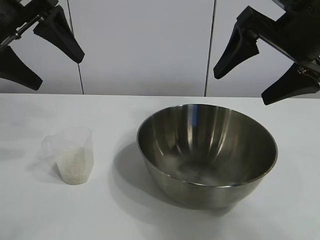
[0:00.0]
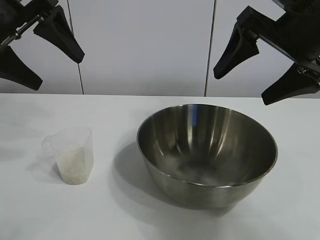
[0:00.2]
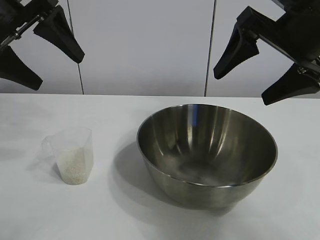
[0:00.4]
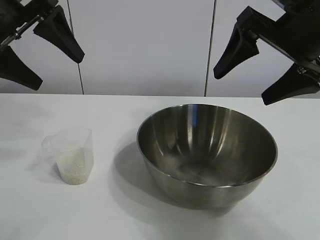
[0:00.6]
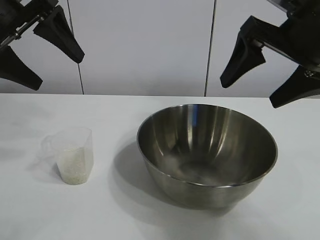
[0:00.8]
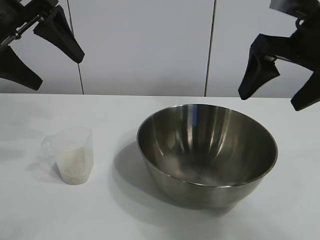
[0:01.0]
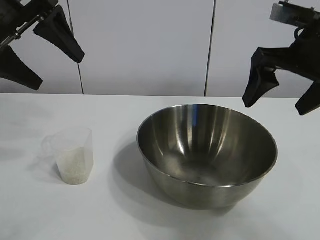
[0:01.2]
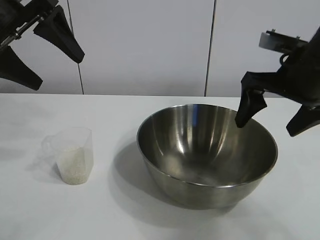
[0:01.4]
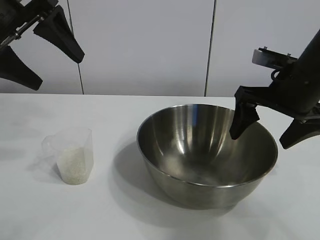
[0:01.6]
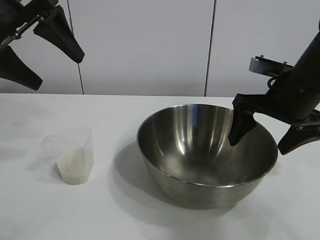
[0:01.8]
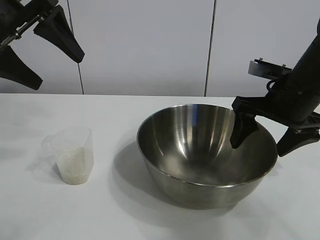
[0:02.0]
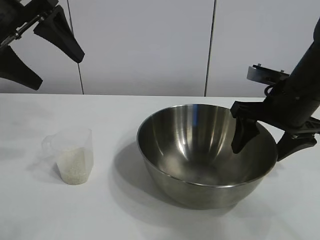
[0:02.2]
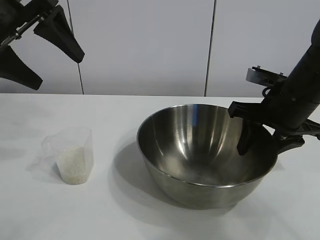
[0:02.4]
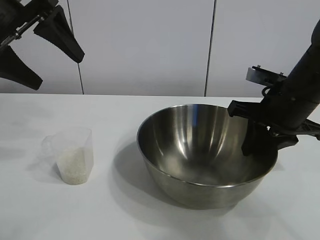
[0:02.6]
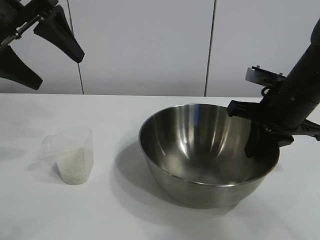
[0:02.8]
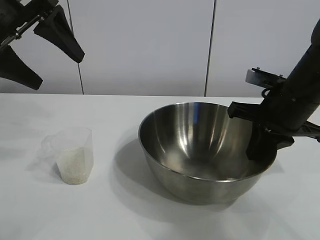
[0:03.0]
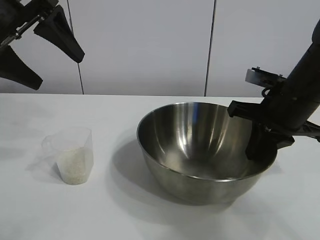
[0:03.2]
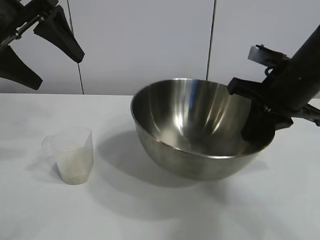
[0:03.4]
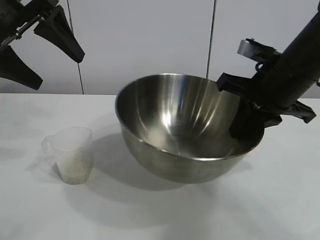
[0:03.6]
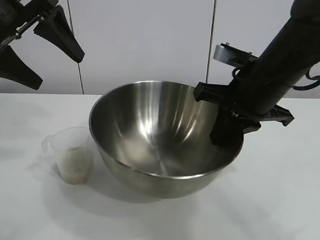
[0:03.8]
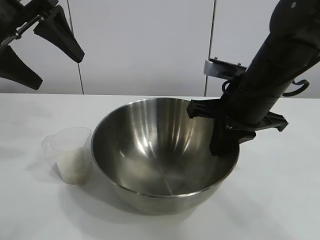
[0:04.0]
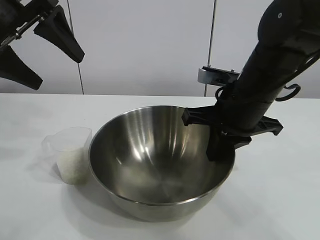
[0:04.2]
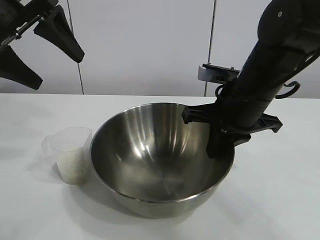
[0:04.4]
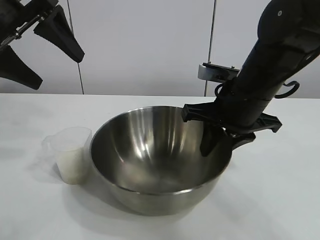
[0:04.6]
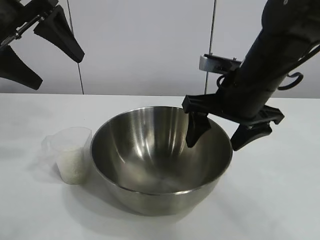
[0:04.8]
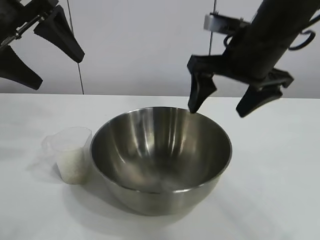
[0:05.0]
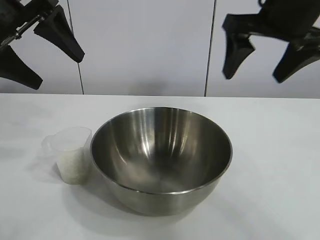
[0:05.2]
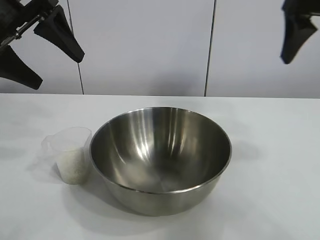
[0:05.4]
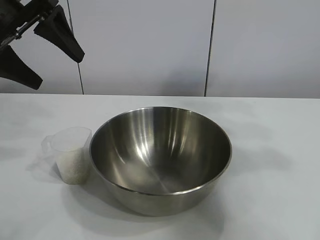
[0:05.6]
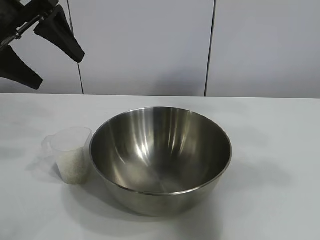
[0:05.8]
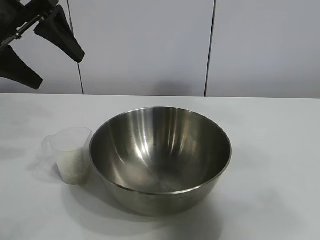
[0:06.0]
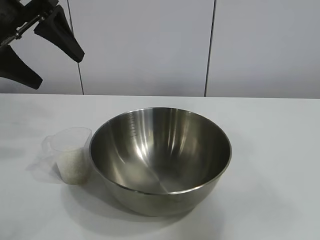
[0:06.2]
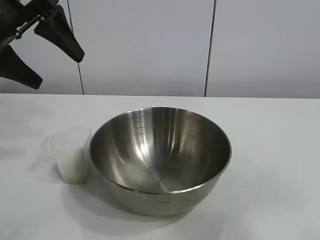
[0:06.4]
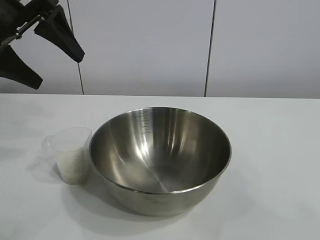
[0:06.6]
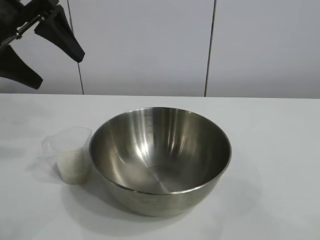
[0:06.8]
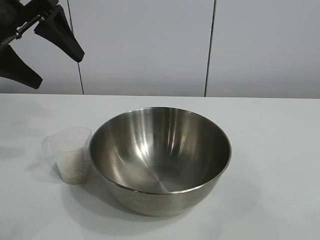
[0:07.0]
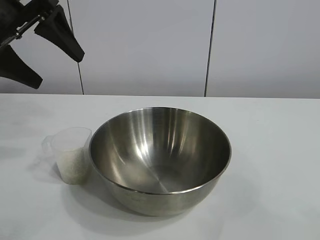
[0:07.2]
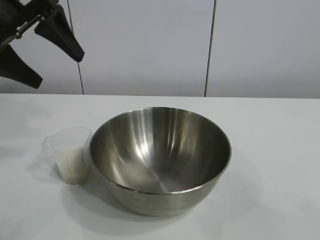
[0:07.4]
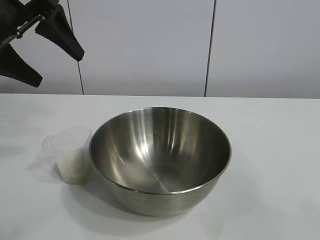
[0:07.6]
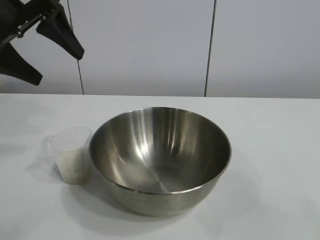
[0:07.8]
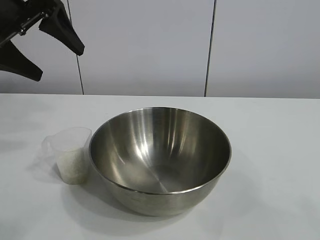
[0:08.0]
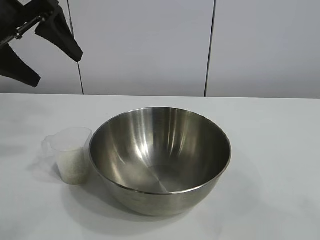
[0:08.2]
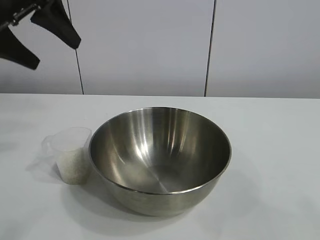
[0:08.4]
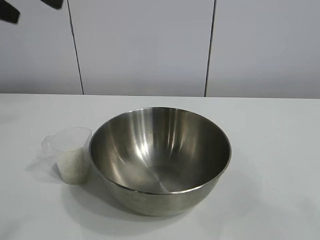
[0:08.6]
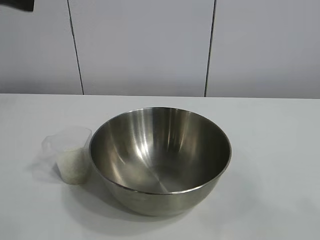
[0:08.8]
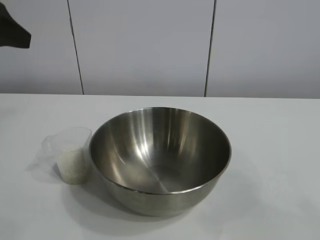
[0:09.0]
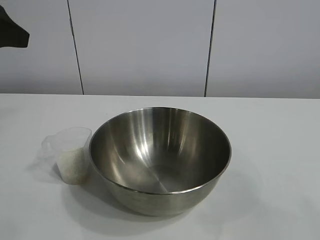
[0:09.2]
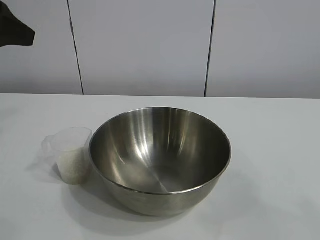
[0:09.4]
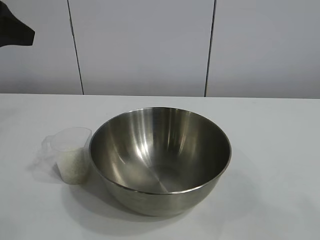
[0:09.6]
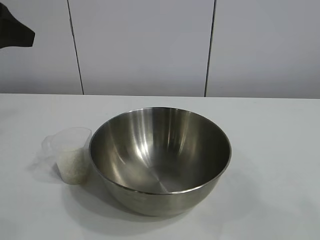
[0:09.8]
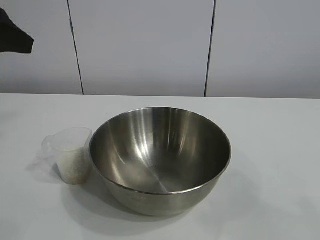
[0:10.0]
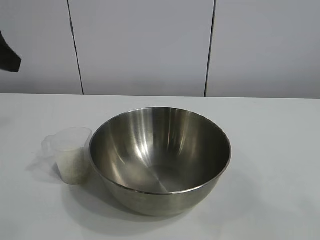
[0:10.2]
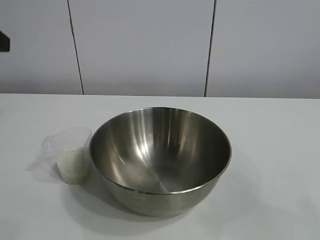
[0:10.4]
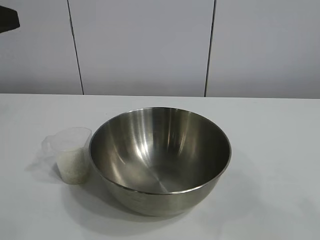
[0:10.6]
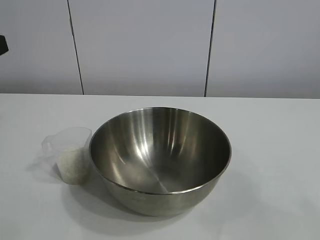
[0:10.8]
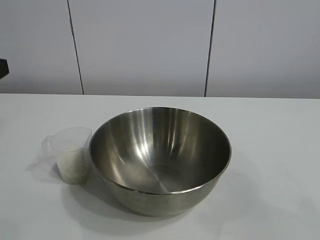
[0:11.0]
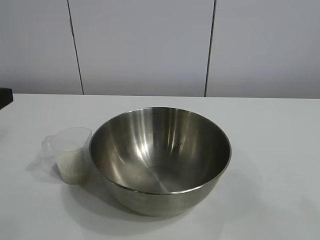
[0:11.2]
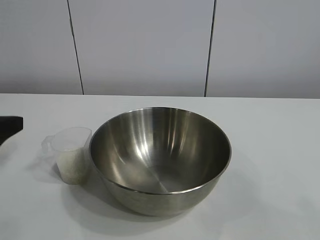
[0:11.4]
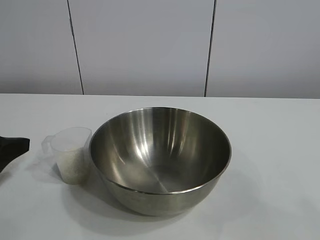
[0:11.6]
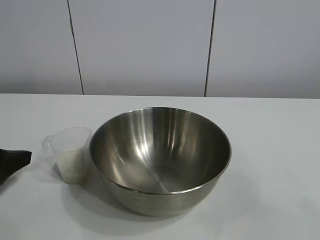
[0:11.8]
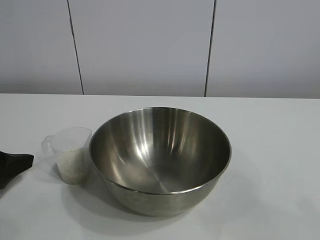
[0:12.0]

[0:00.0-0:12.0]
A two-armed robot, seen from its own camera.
Task of the whole recording: the right gripper grasp the rice container and place it in the center of the table, the left gripper grasp the rice scoop and pour the rice into the rice container.
Step, 0:00.6 to 0:04.6: Move the bowl in the center of view with right gripper.

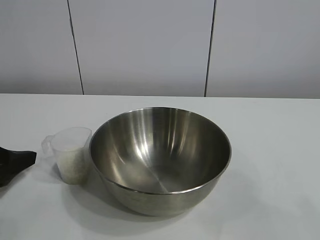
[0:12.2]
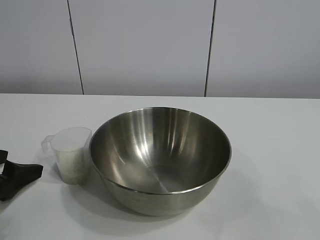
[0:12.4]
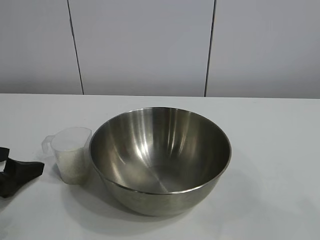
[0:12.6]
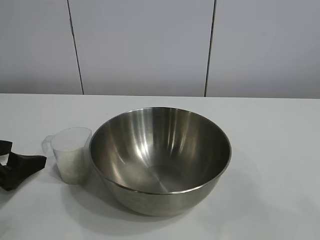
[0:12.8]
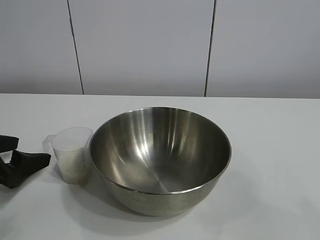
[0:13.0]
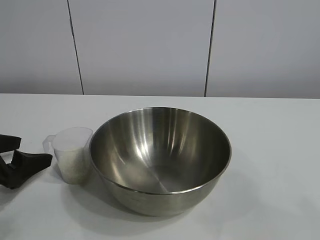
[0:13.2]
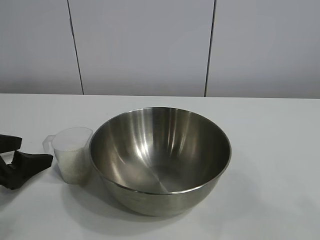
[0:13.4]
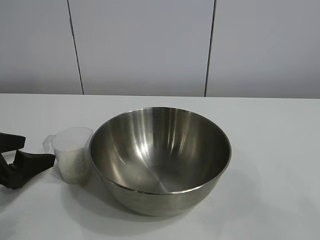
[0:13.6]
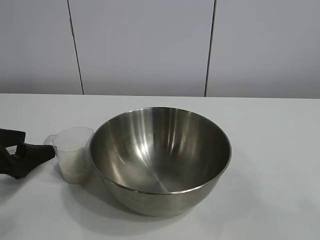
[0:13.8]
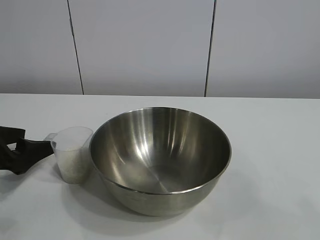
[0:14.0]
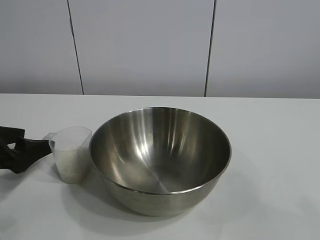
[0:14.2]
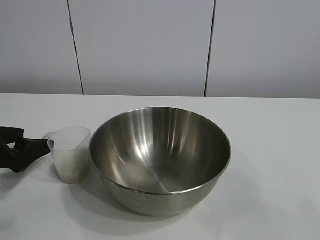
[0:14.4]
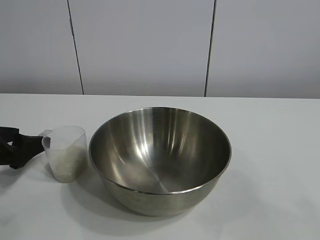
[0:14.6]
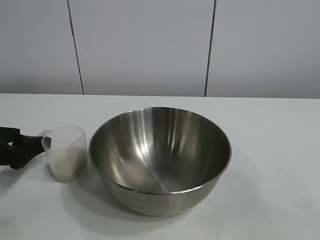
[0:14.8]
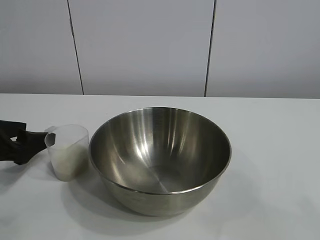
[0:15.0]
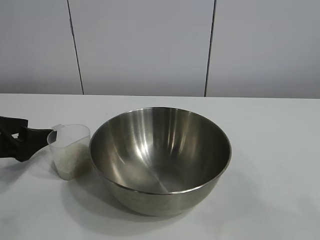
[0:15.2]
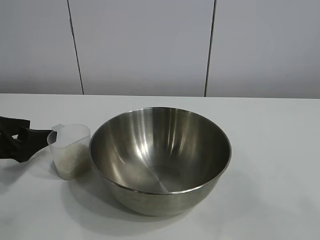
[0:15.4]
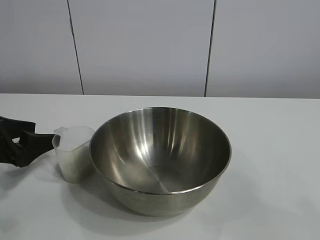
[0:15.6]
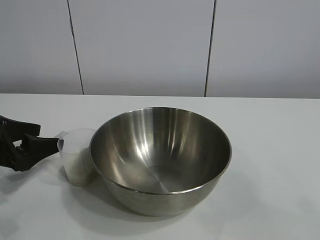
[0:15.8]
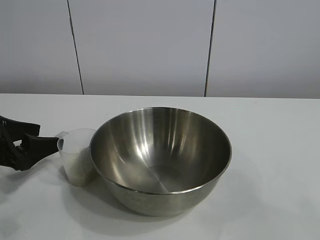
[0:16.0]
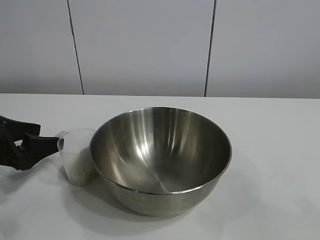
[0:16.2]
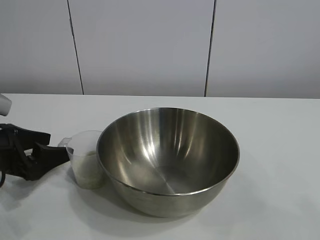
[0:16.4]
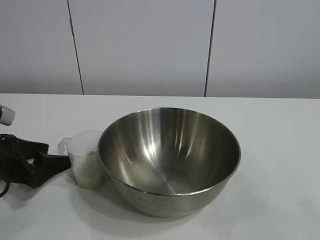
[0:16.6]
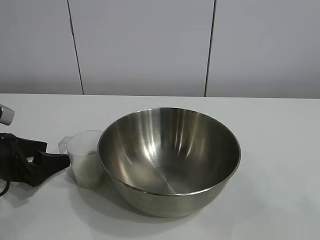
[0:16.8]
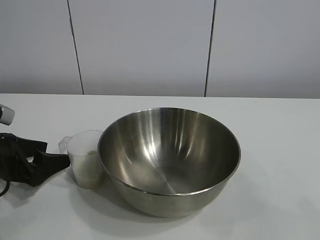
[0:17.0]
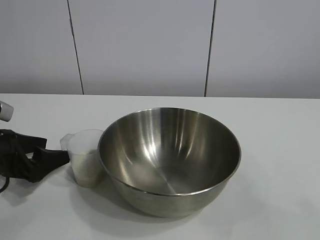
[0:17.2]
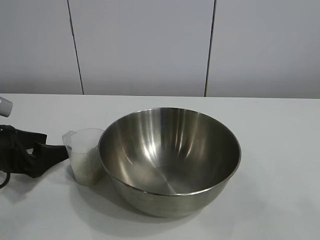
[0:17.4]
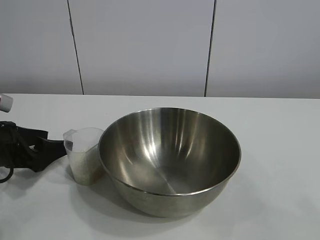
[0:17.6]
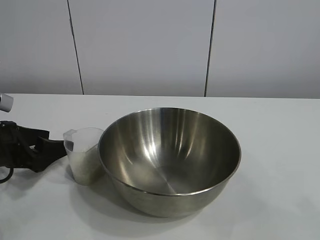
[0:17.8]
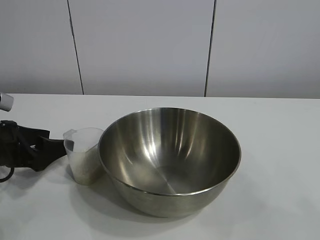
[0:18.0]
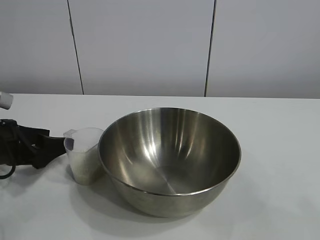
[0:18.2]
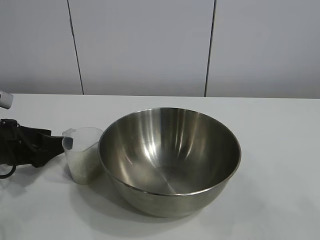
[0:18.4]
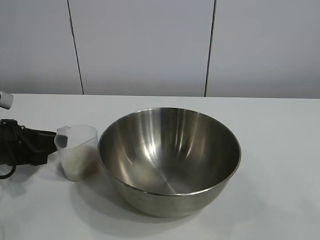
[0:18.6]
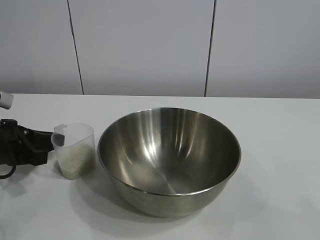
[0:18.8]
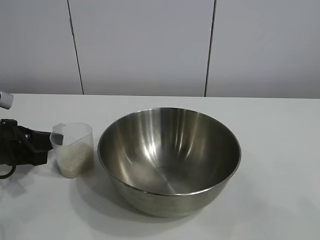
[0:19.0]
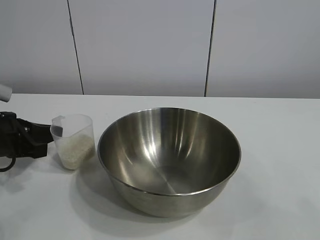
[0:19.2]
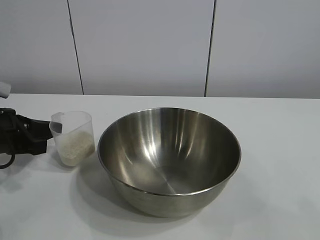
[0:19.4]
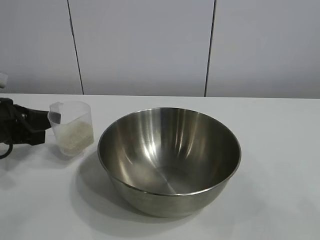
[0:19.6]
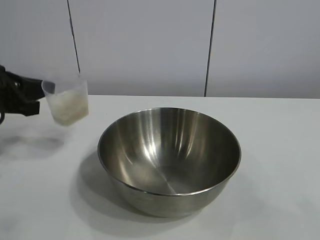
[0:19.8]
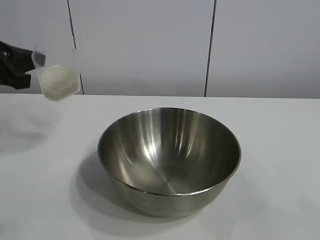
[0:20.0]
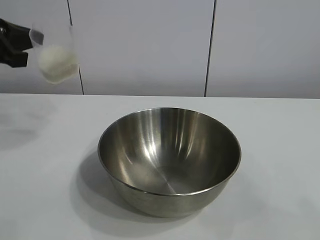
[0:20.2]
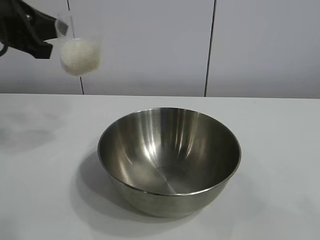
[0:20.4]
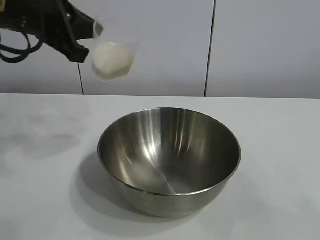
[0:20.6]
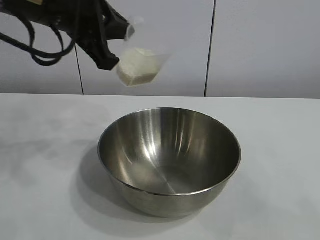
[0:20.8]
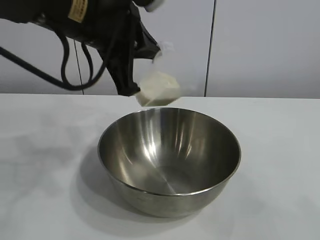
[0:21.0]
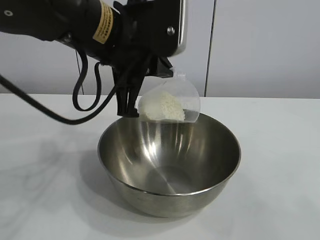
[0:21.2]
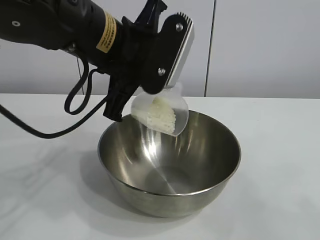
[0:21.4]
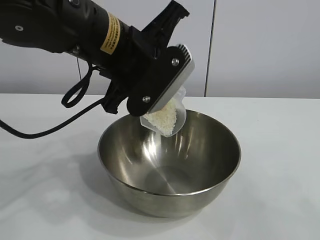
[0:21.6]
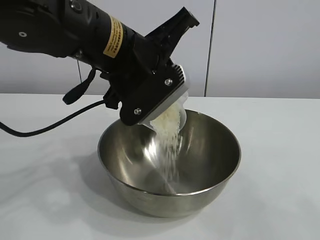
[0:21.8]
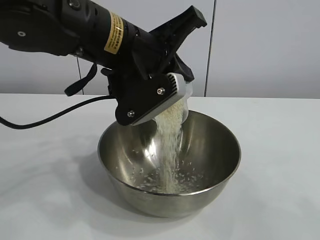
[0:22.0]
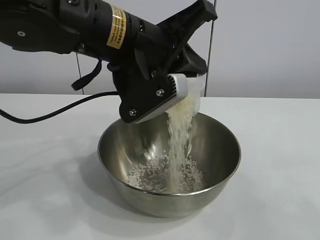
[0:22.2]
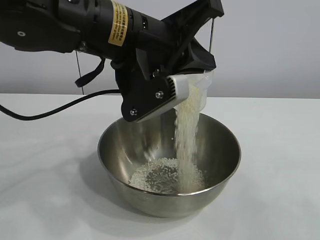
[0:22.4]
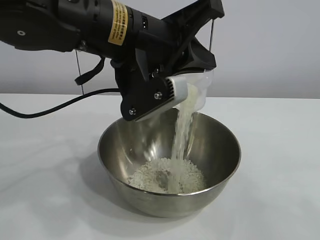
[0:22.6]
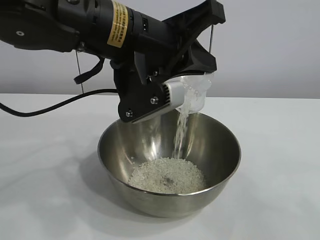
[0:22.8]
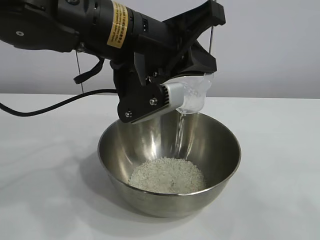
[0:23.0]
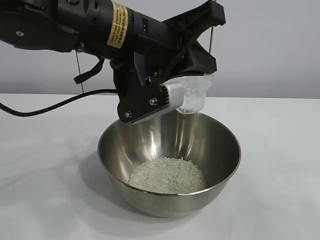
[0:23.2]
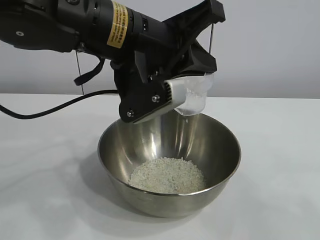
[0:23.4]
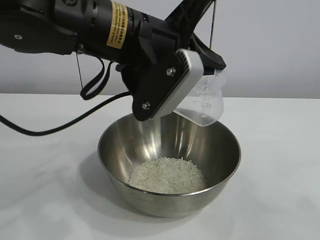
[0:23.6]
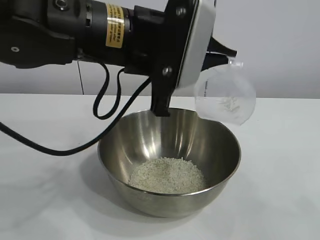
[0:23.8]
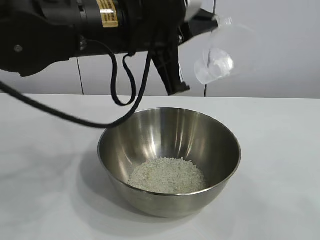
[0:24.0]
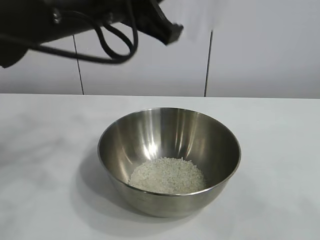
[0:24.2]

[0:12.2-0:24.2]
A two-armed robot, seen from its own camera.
Task of the whole recording: the right gripper grasp the rice container and place it in the center of the table, the left gripper grasp the rice scoop and pour the rice into the rice container.
Step, 0:12.2 to 0:19.0: Grasp the cup with rice in it with left gripper.
Step, 0:19.2 to 0:23.2: Pour the rice from the cup into the bowl with the left gripper.
